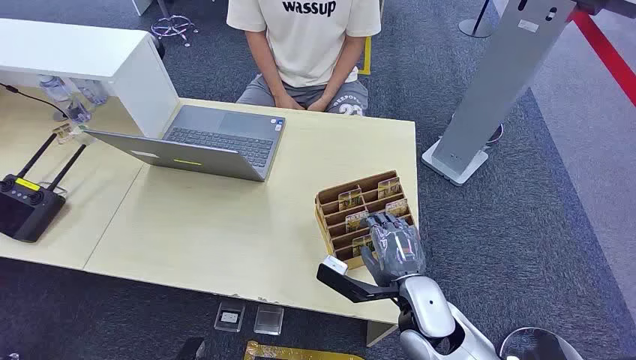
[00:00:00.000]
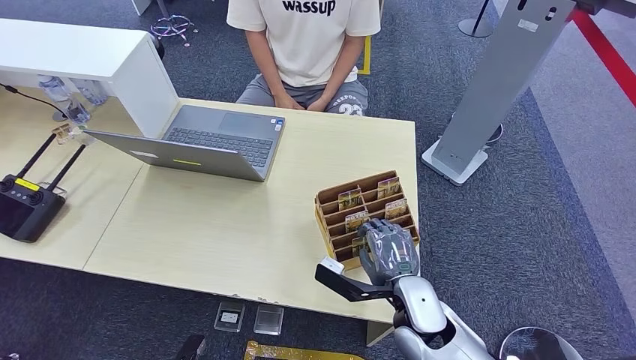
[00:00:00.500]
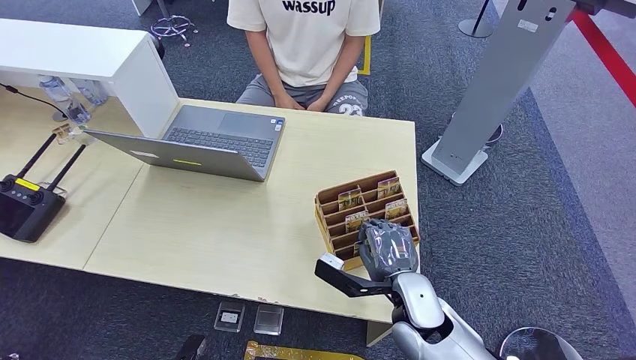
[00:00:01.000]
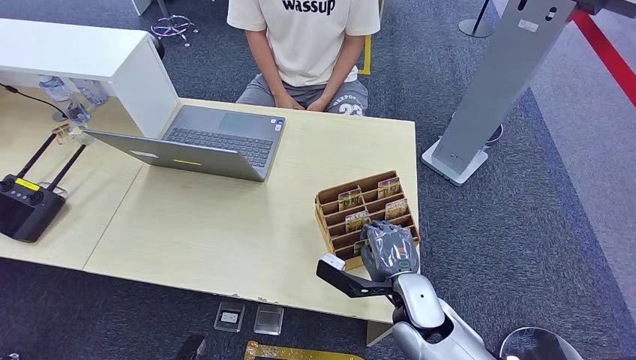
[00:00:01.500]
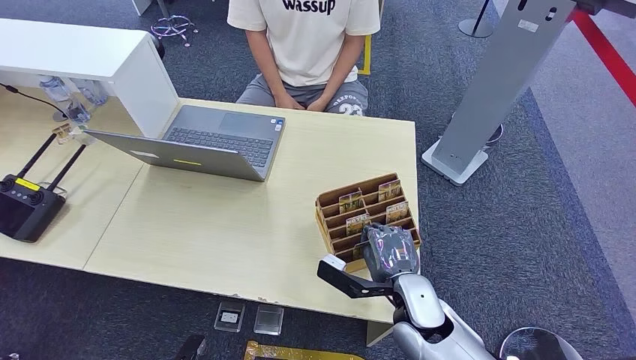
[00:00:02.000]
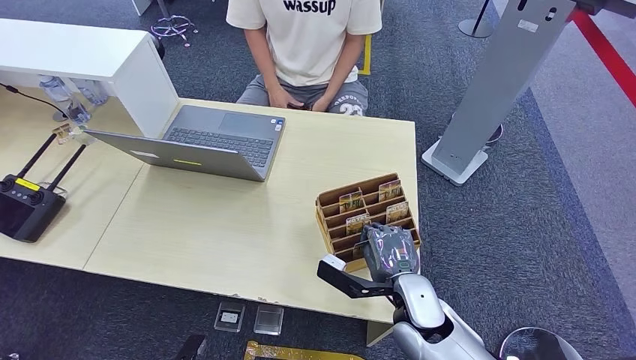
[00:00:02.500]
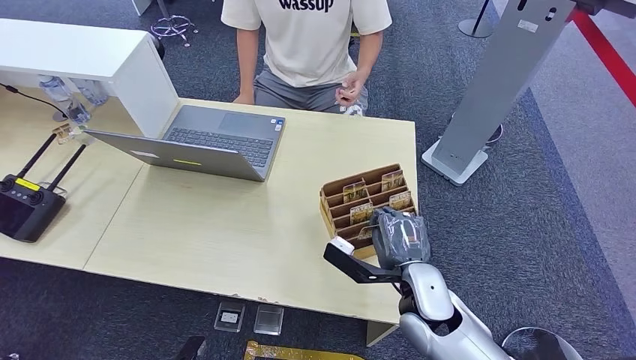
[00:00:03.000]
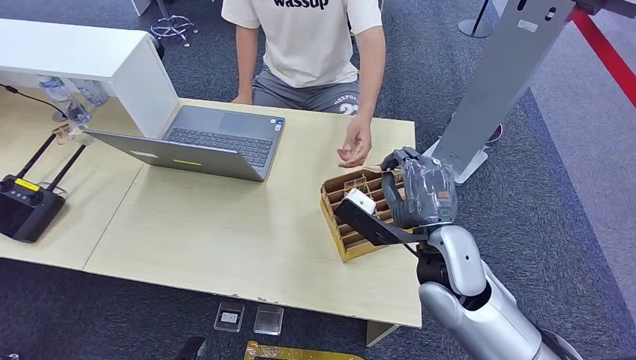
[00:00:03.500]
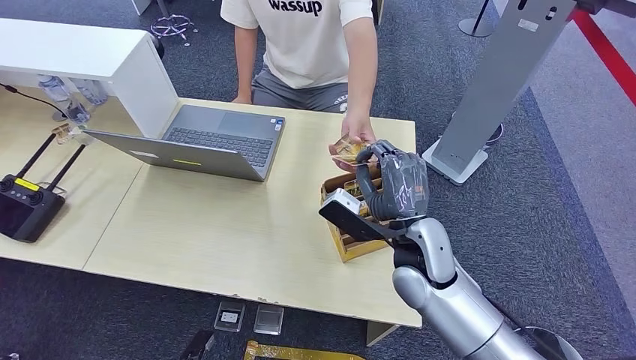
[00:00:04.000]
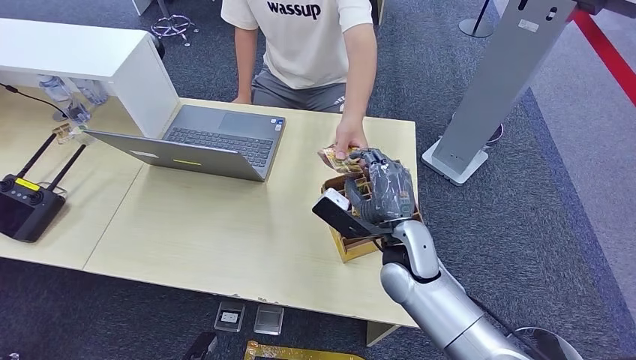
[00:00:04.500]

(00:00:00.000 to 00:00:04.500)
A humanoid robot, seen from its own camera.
Step, 00:00:00.000 - 00:00:03.000: Pick up the room card from the card holder.
Step, 00:00:03.500 - 00:00:04.500: Hand the room card to the target.
00:00:02.000 - 00:00:04.500: The right hand heads upward and forward, covering approximately 10 cm.
